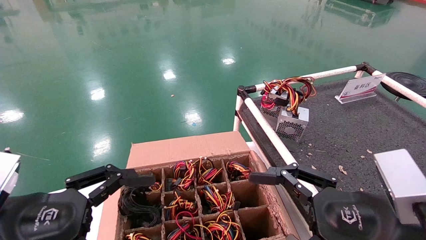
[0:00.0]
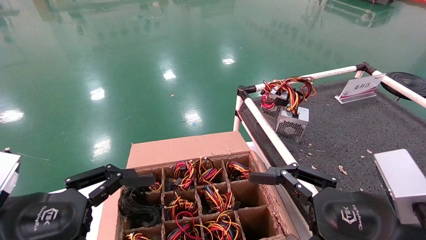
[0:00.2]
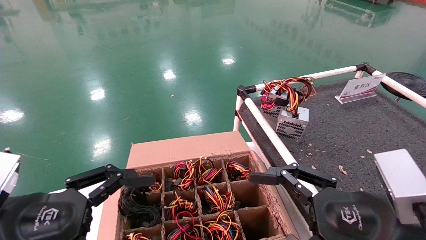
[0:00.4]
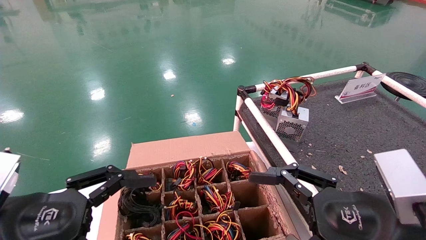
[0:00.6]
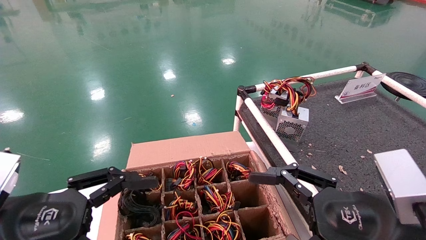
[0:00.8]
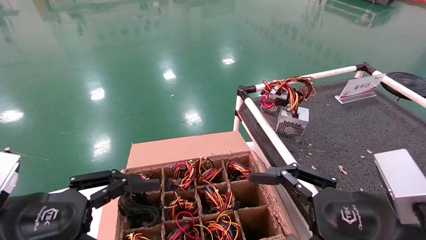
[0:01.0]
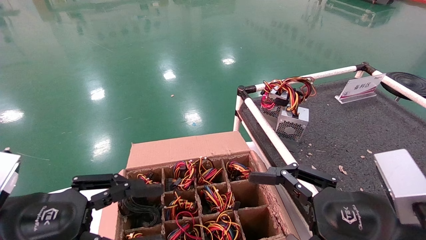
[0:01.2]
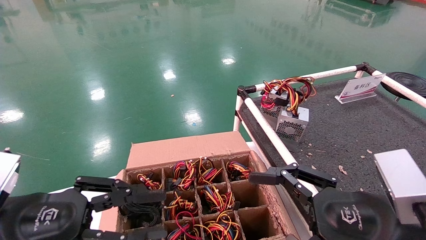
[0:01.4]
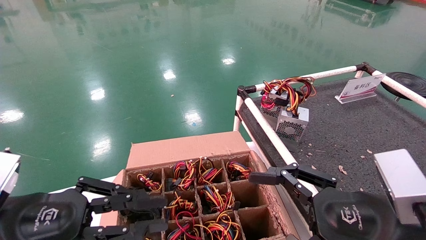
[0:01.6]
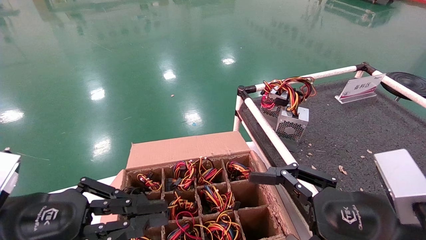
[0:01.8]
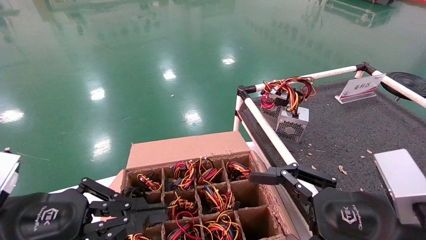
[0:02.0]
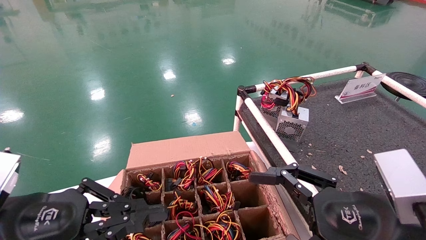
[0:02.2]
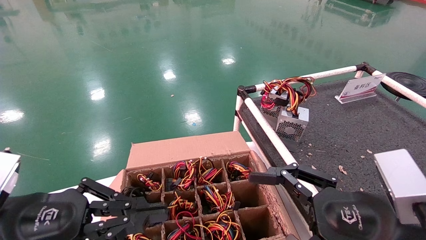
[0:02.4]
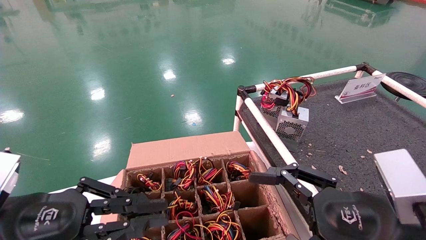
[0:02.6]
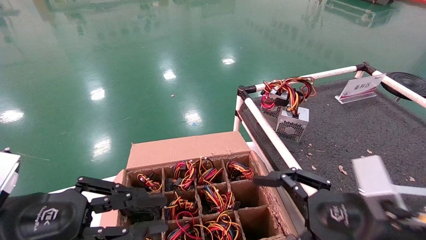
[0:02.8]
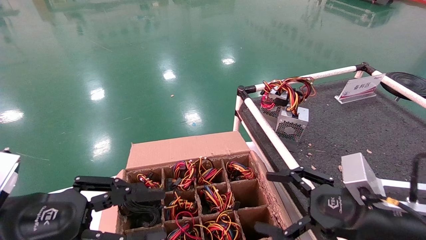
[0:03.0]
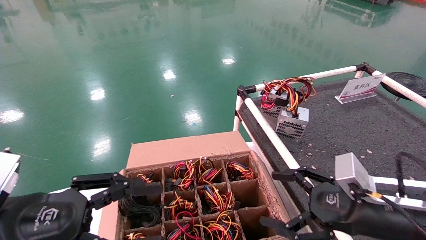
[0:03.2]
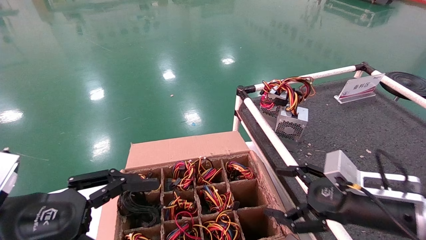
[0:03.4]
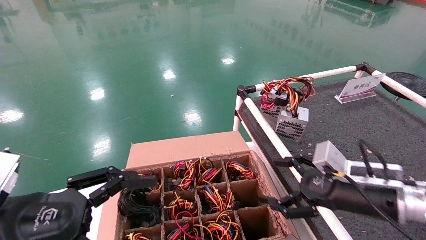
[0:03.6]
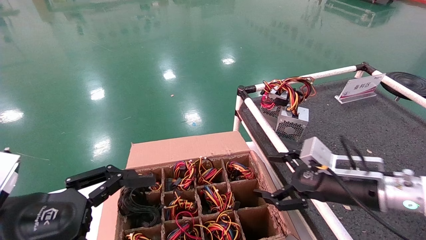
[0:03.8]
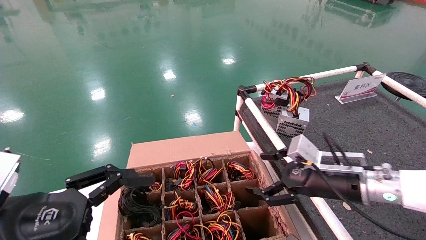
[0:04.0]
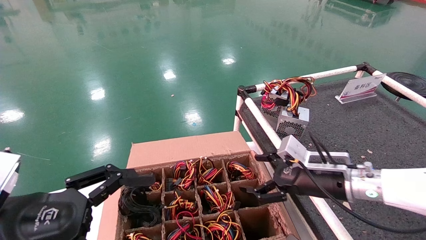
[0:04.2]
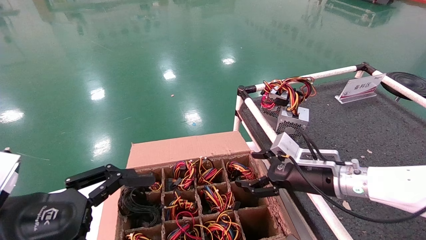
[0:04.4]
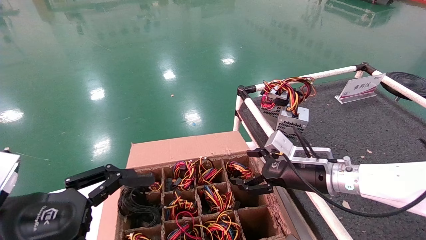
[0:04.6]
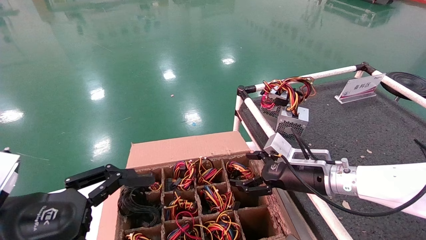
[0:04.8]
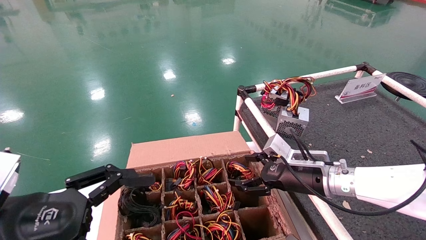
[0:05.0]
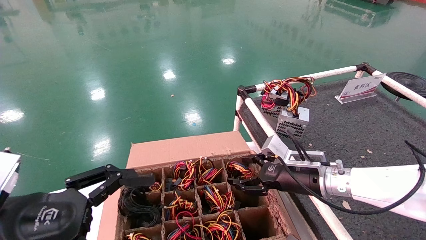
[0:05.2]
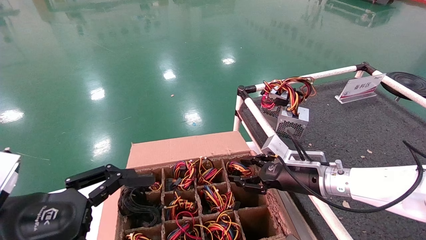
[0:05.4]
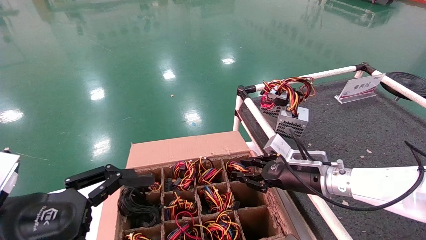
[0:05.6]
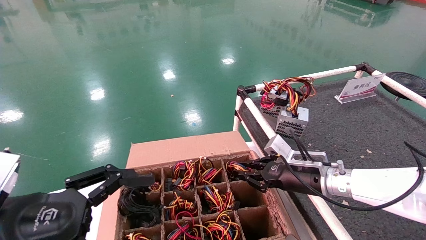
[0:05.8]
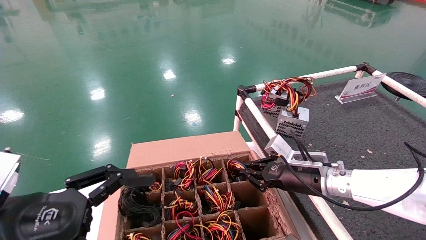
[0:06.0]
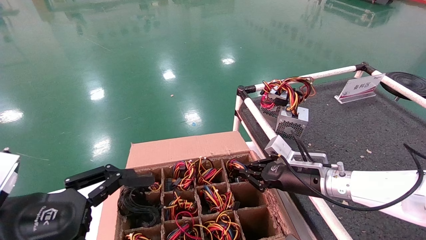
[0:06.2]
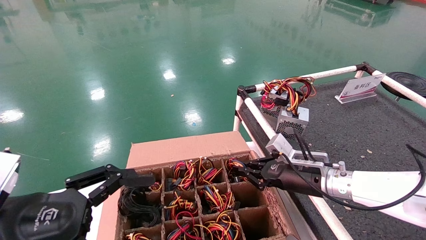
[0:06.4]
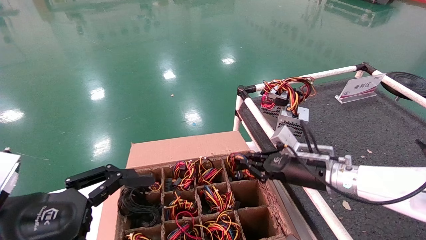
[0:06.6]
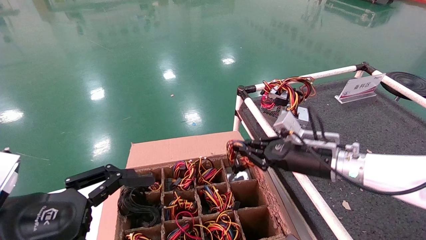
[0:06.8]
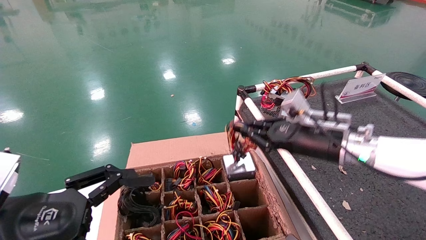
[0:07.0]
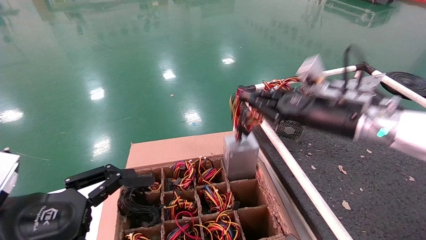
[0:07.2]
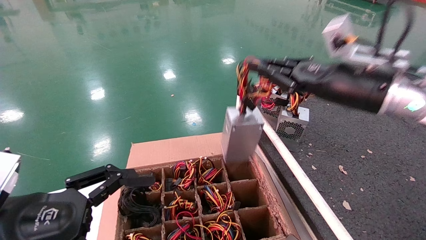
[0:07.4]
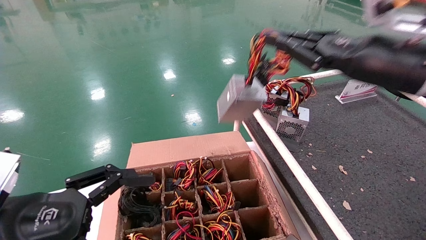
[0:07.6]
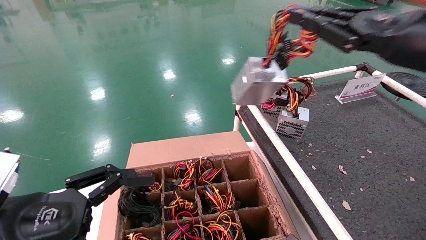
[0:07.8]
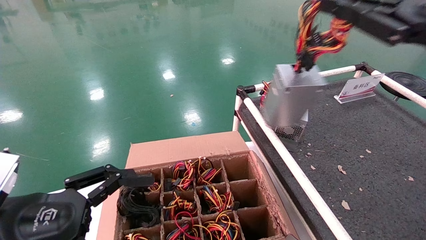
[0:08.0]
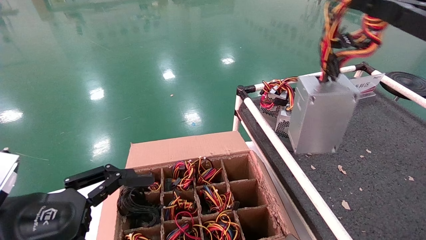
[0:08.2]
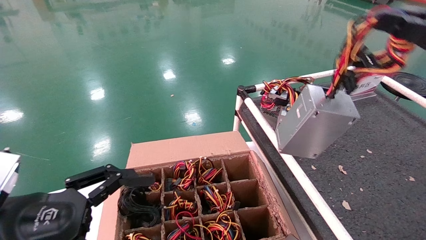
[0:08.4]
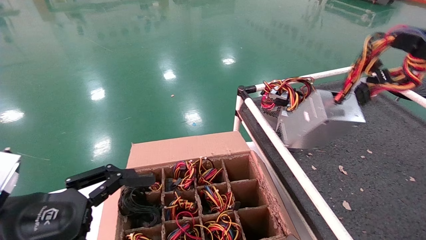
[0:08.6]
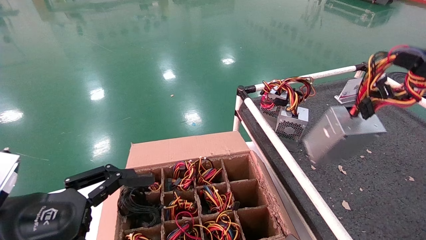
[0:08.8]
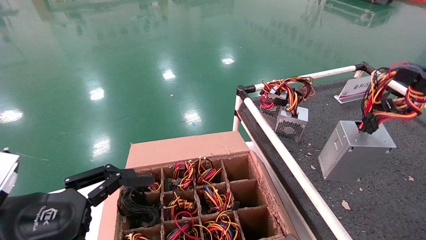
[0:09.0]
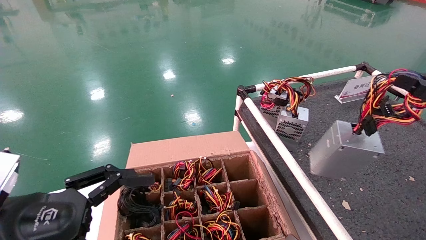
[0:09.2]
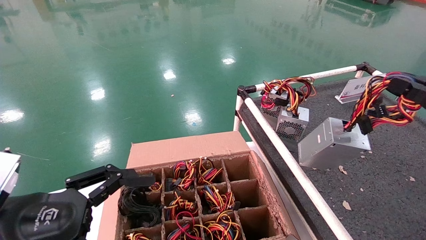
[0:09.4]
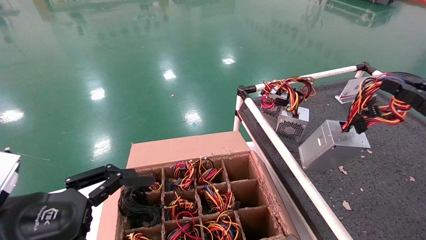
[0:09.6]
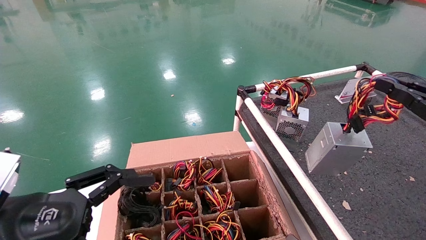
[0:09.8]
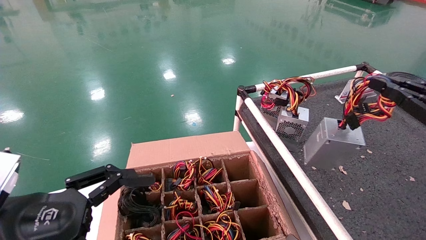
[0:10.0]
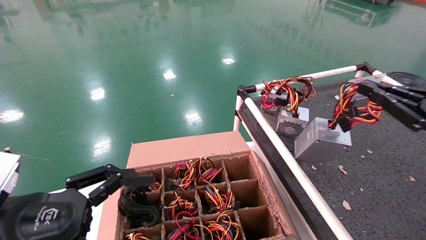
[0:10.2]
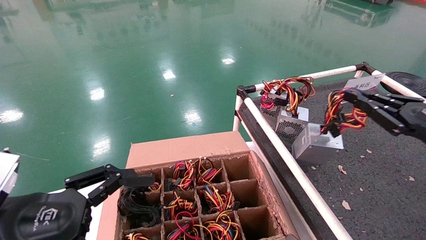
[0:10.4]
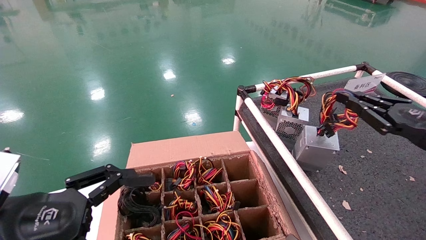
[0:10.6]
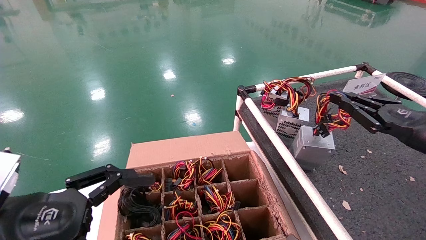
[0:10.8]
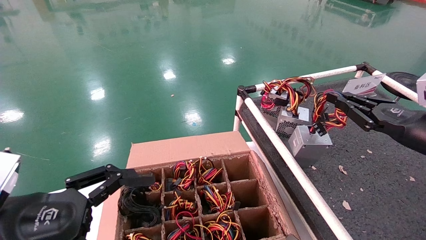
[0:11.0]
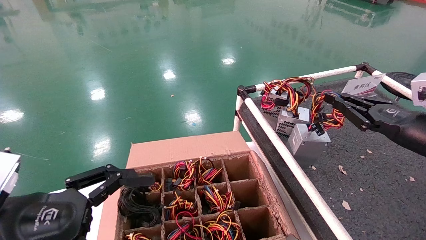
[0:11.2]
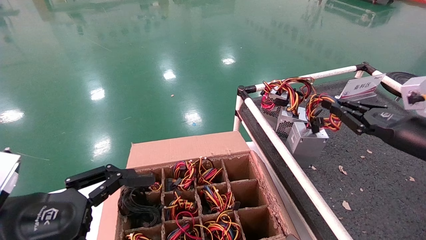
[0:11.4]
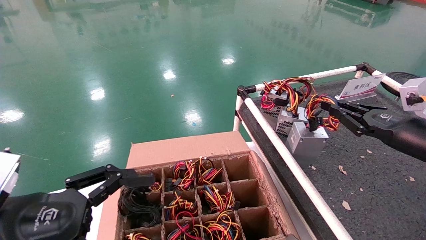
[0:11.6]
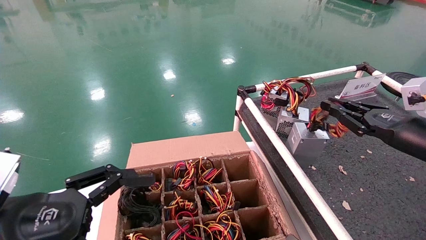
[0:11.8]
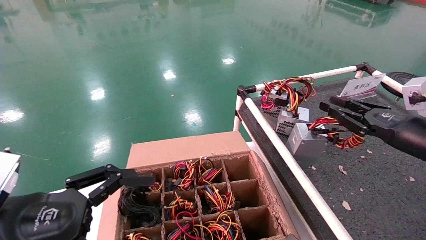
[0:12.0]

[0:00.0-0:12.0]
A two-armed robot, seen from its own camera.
Step, 0:03.2 to 0:06.2: Grab and lift the power supply from the large box.
0:00.0 to 0:01.6: The left gripper closes up.
0:01.6 to 0:03.0: The right gripper heads forward, covering roughly 5 cm.
0:03.0 to 0:04.4: The right gripper travels forward by about 15 cm, while the left gripper opens.
0:04.4 to 0:06.0: The right gripper closes up.
0:06.0 to 0:07.6: The right gripper goes approximately 25 cm upward and backward.
0:07.6 to 0:09.0: The right gripper is displaced to the right, backward and downward by some 20 cm.
0:09.0 to 0:10.4: The right gripper heads forward, covering some 10 cm.
0:10.4 to 0:12.0: The right gripper goes roughly 5 cm forward.

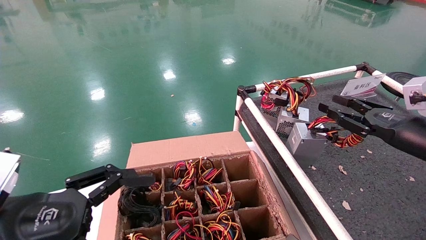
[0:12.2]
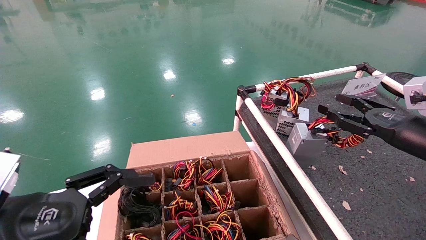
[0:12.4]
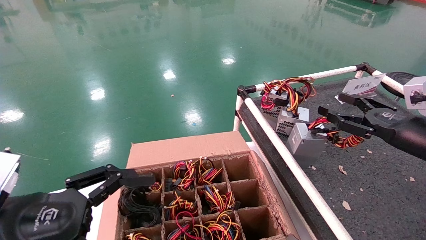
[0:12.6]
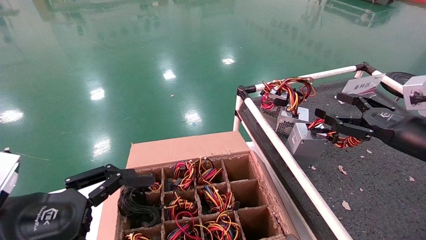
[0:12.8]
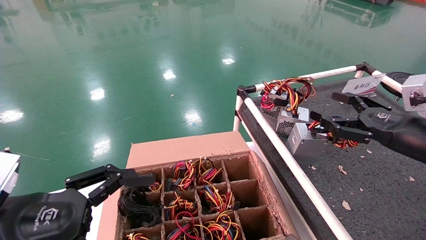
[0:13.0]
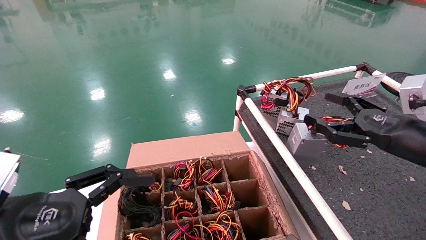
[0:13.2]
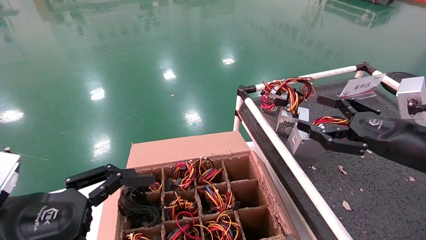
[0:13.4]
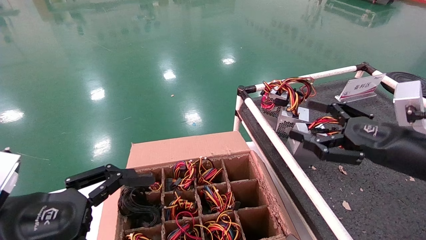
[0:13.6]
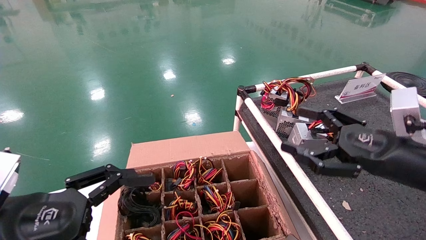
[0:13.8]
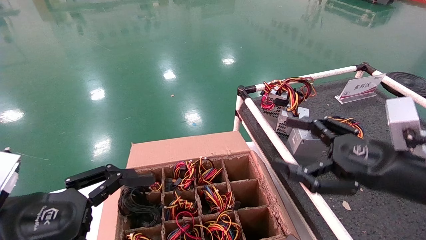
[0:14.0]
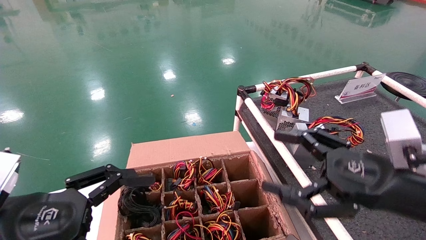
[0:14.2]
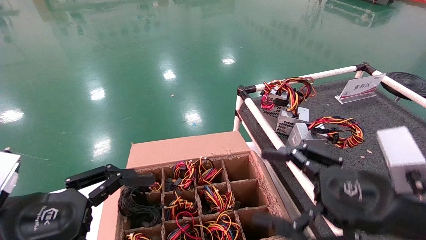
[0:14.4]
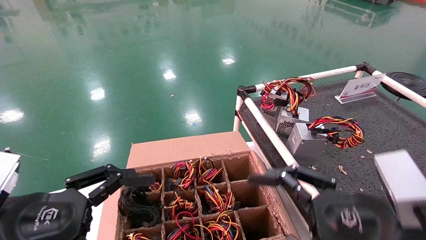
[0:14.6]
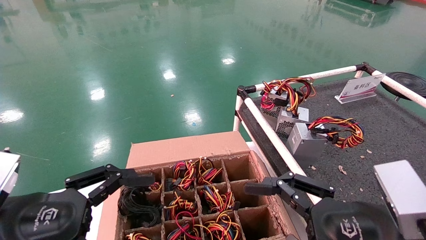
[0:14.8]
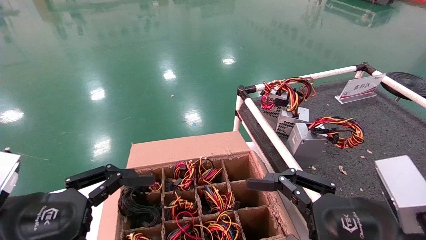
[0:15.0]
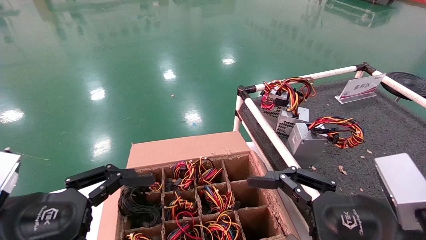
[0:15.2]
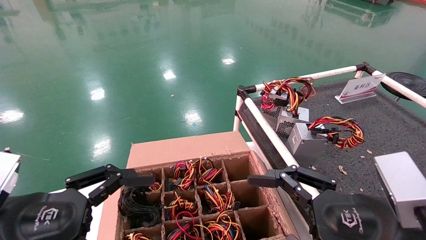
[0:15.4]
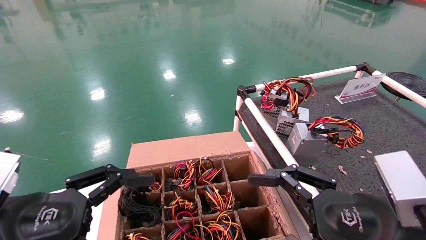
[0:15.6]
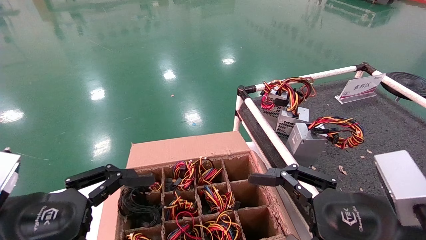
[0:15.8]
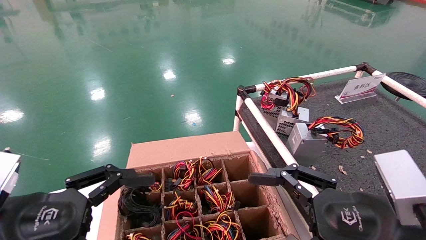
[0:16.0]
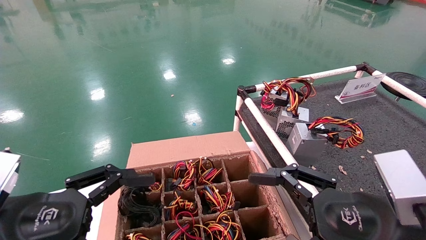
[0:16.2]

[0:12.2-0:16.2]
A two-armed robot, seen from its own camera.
0:12.2 to 0:13.6: The right gripper heads to the left and backward, covering about 10 cm, and opens up.
0:13.6 to 0:14.8: The right gripper goes approximately 15 cm backward and to the left.
0:14.8 to 0:16.2: Both grippers stay put.
